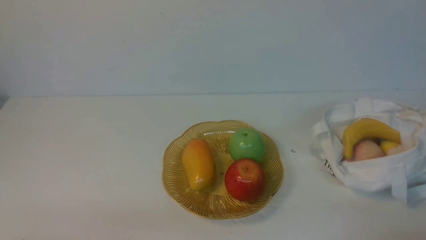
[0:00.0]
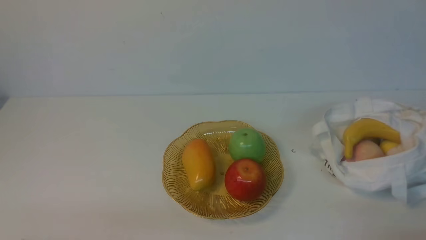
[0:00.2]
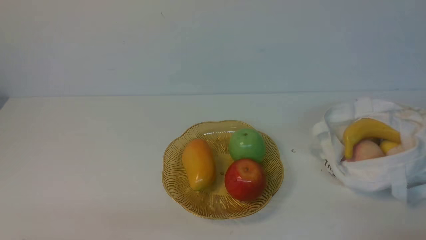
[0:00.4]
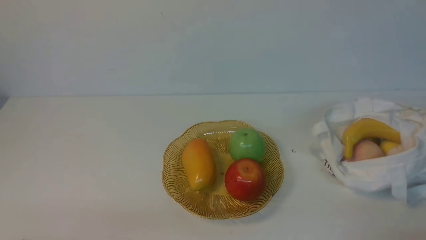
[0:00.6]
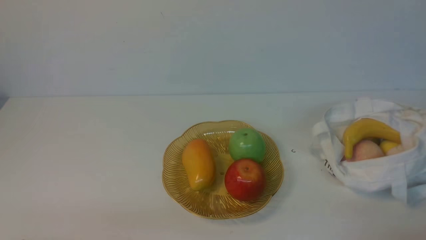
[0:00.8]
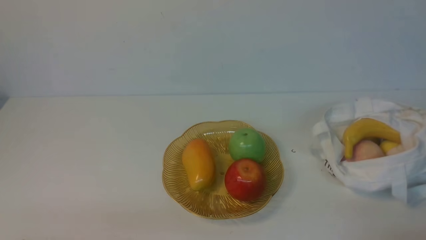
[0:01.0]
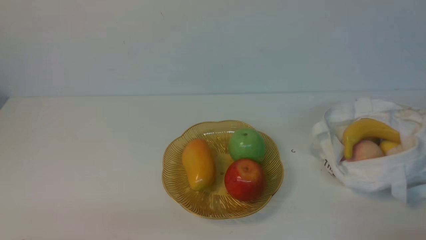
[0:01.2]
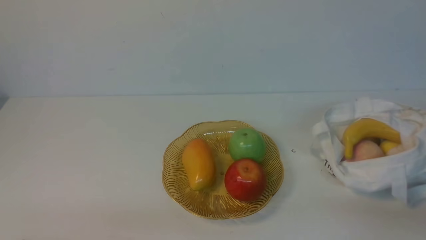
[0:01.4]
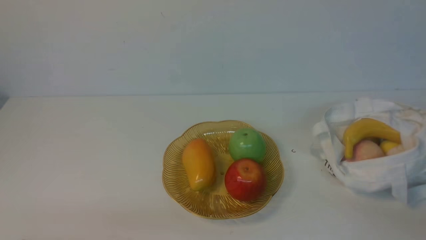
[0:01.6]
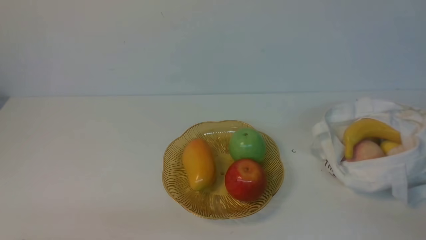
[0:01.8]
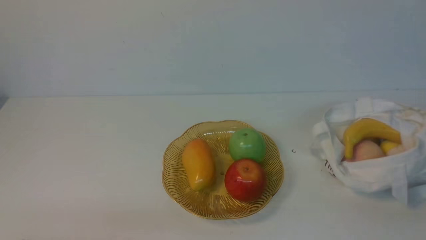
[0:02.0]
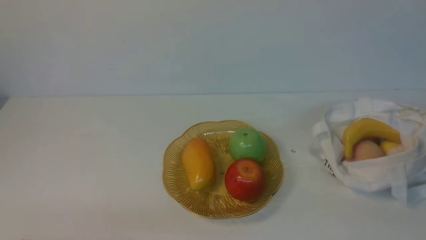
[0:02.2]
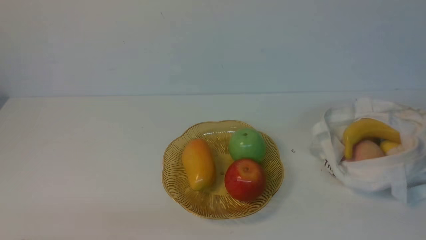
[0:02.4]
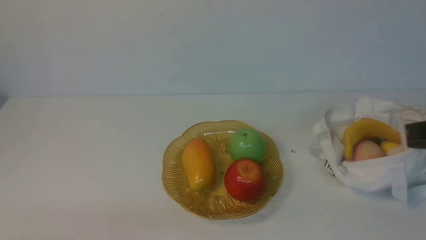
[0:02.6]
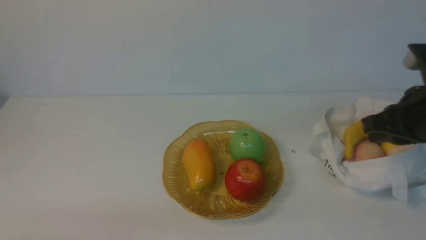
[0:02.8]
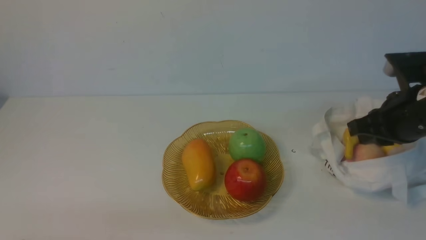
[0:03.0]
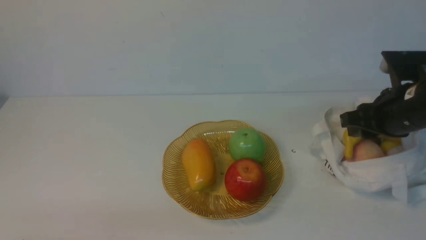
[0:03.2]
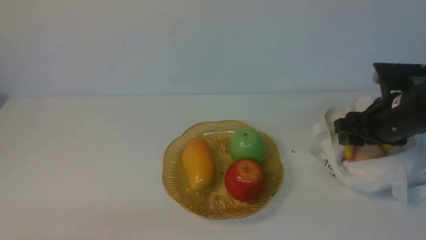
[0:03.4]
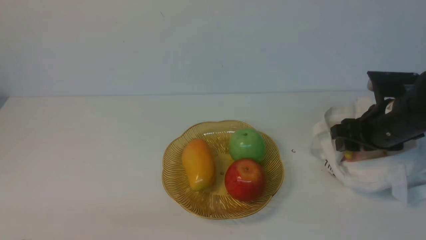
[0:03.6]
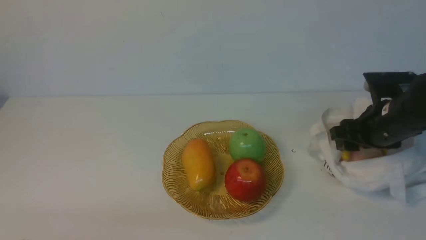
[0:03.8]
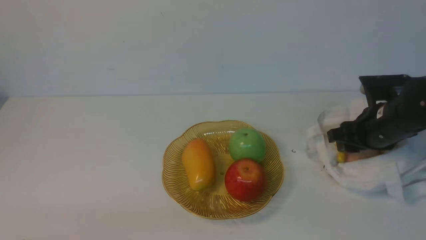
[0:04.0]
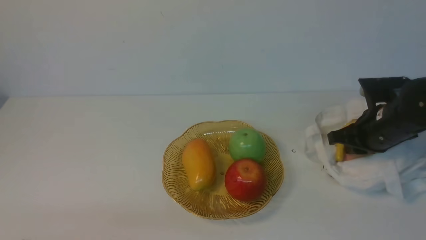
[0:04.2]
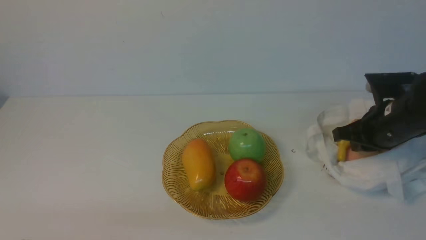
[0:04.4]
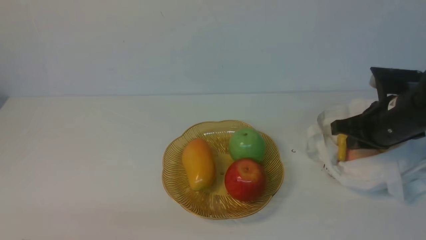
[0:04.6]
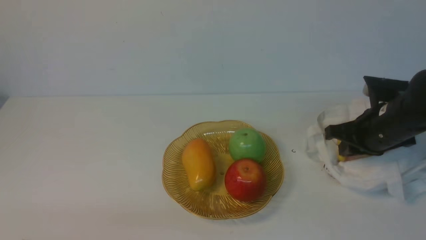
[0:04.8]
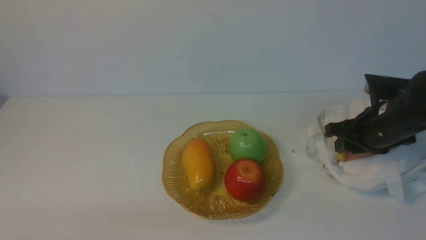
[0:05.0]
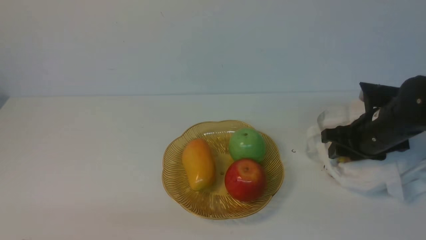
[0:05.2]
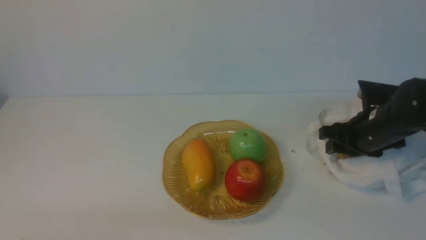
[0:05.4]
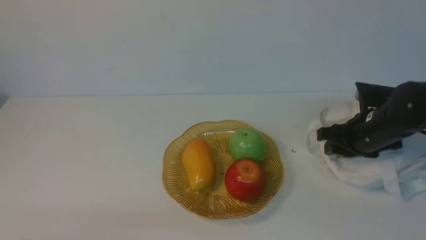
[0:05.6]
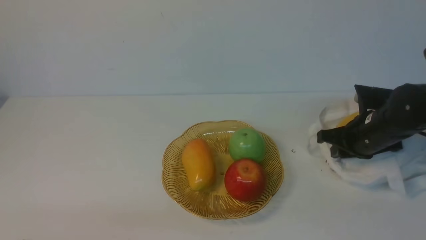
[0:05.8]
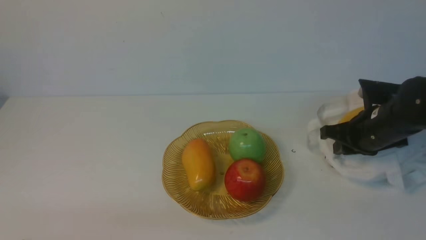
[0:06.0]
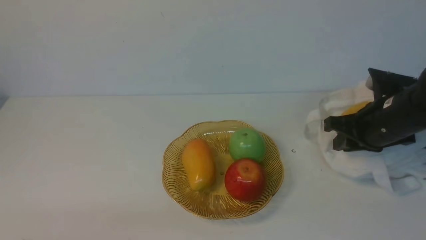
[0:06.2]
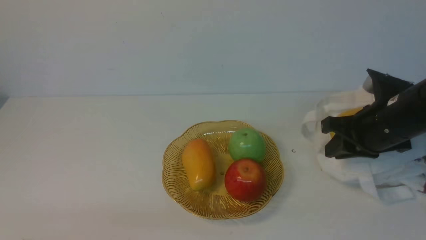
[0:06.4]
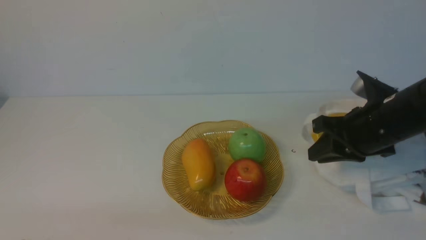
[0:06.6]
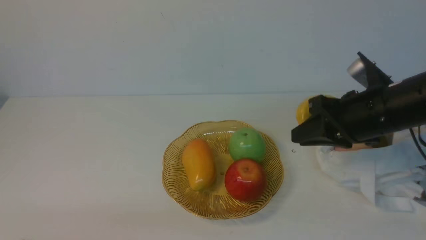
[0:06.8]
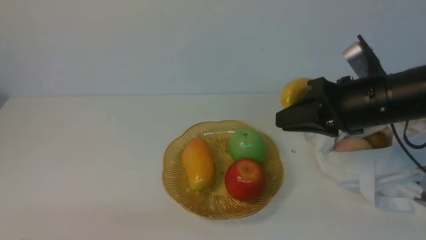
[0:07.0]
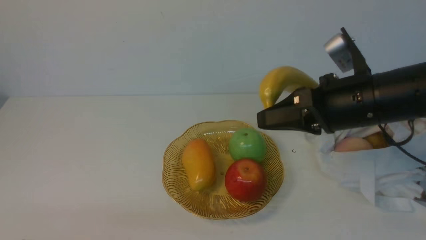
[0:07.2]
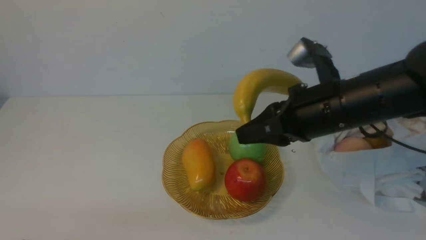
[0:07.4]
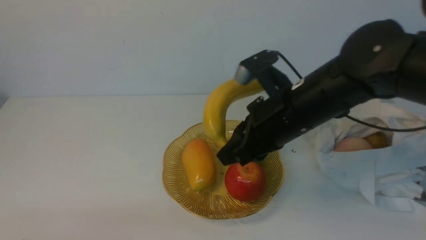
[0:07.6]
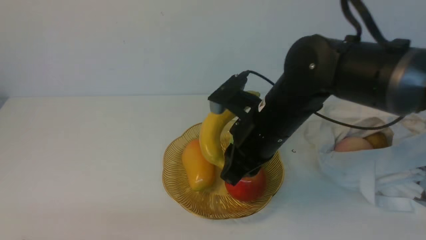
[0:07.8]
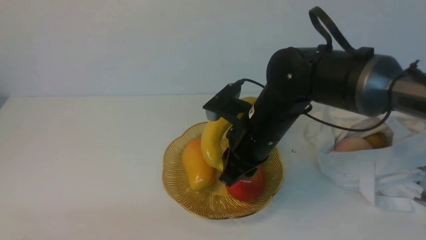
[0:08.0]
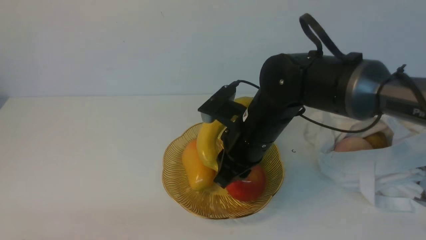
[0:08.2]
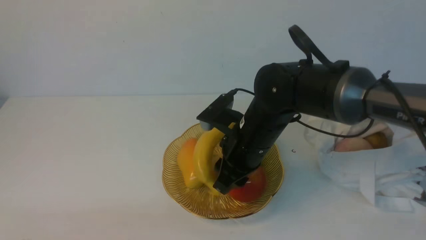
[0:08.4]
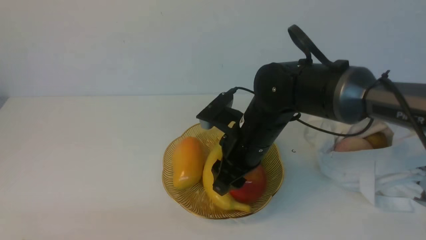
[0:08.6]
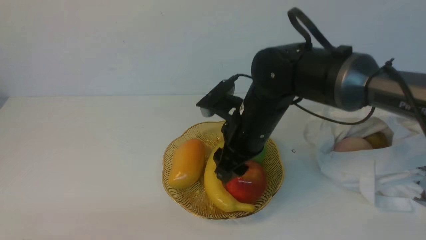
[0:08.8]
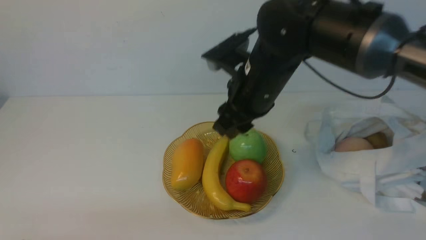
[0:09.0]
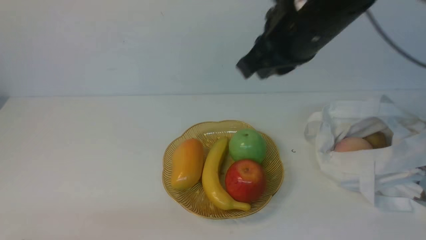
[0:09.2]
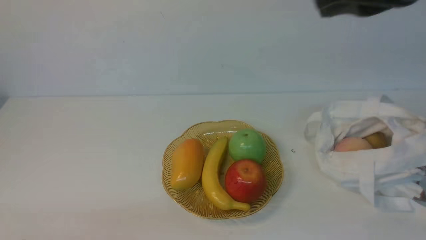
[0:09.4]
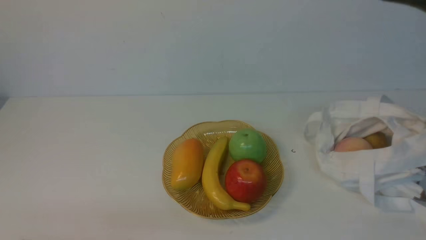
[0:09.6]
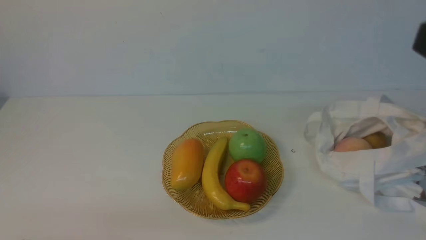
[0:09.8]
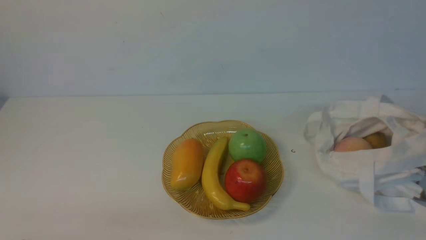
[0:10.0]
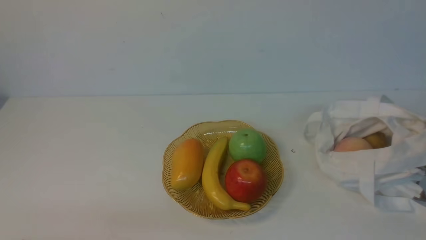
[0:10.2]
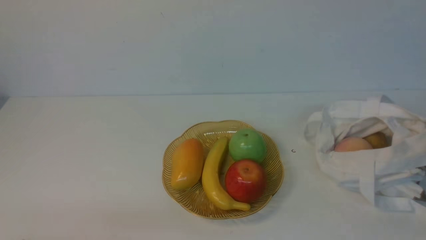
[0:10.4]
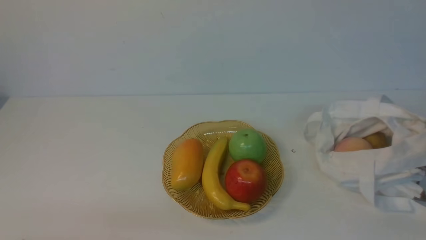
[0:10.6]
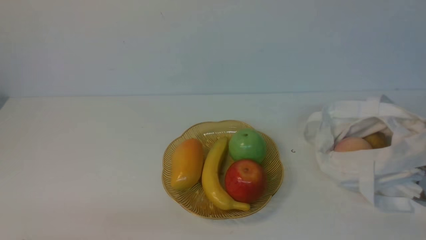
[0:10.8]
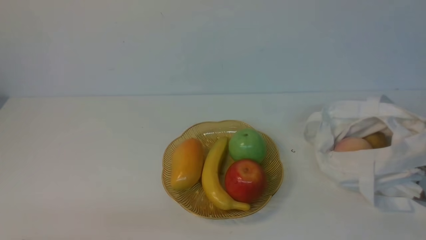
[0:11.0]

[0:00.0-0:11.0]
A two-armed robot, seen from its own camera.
Step, 0:00.0 to 0:06.2: use the right arm to grab a banana from the bag.
Step, 0:06.6 to 0:08.4: use the right arm to put the banana into the empty plate on the right.
0:01.6 to 0:03.2: The right gripper is displaced forward by approximately 25 cm, and opens.
0:03.2 to 0:04.8: The right gripper opens, then closes again.
0:04.8 to 0:06.2: The right gripper opens and closes again.
0:06.2 to 0:07.8: The right gripper travels to the left by about 15 cm.
0:07.8 to 0:09.4: The right gripper goes roughly 25 cm upward and to the right, and opens, then closes again.
0:09.4 to 0:11.0: The right gripper goes about 25 cm downward, backward and to the right.

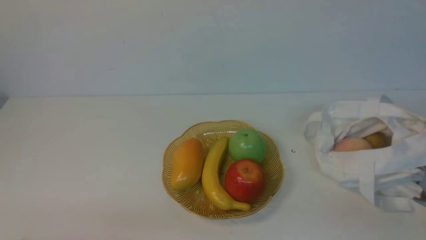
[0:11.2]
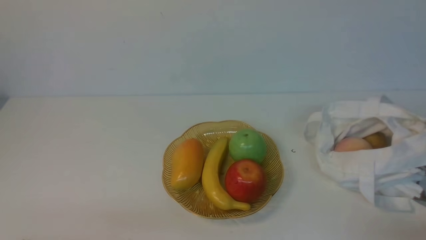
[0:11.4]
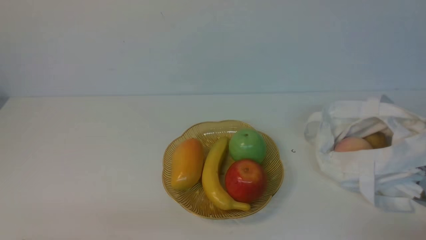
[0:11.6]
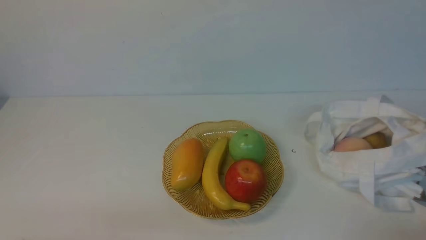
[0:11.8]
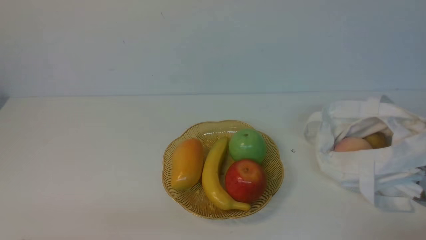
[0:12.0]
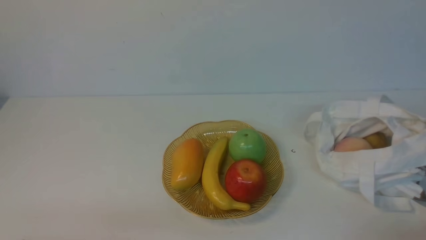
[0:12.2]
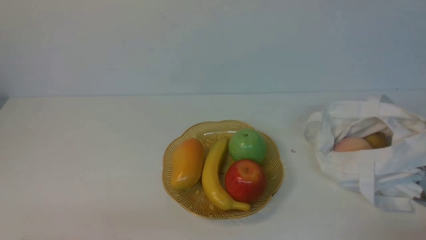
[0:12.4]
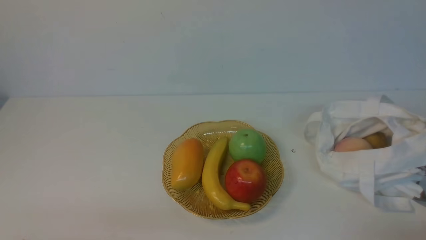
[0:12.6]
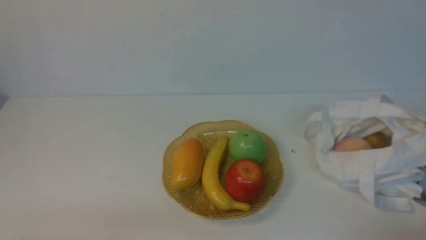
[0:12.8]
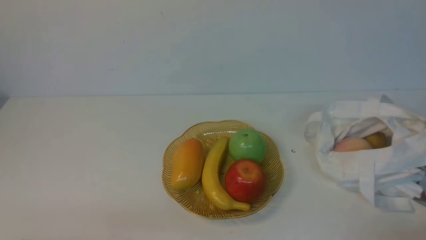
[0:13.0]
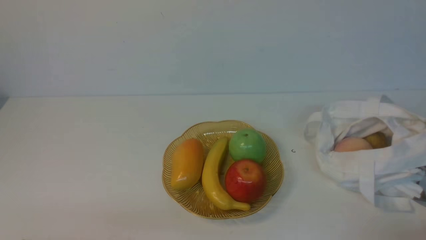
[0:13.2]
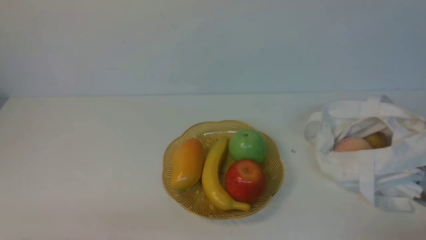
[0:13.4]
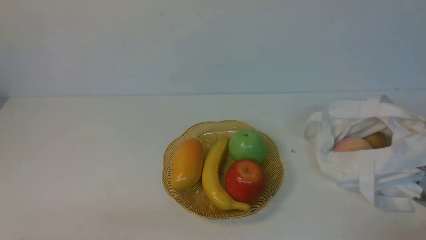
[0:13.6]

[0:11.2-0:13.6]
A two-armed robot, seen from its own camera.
0:12.4 to 0:13.6: The two grippers keep their place.

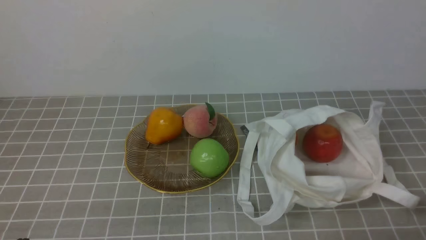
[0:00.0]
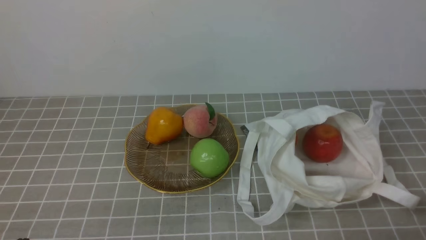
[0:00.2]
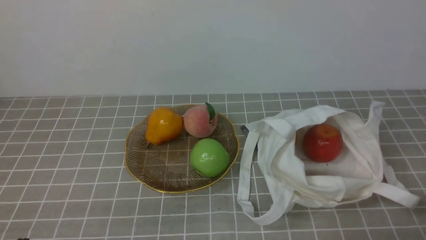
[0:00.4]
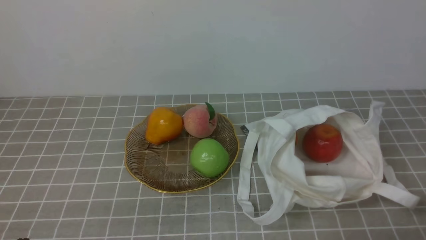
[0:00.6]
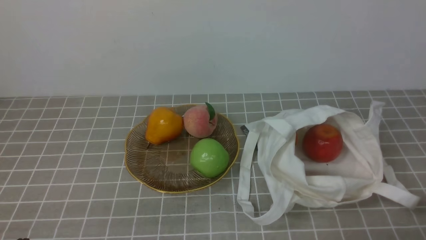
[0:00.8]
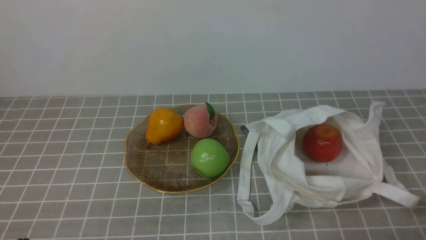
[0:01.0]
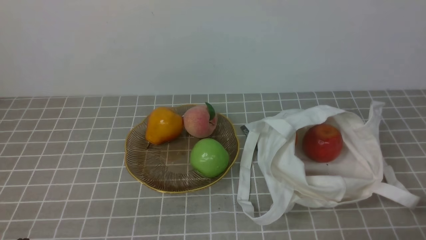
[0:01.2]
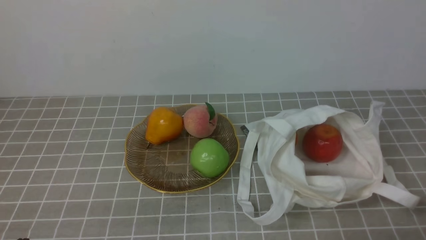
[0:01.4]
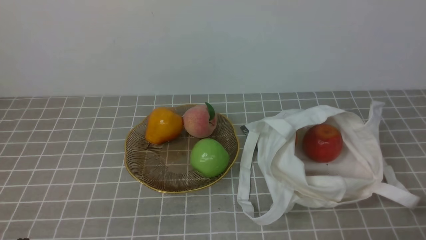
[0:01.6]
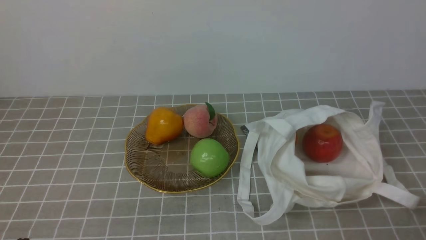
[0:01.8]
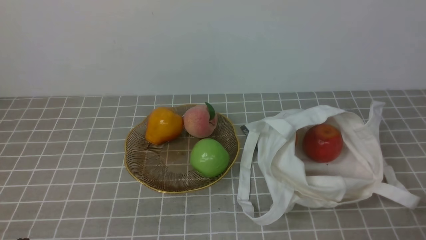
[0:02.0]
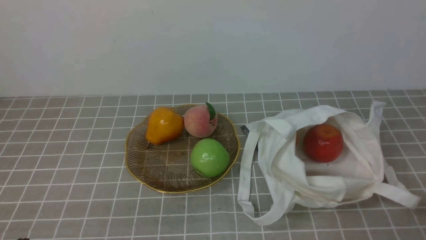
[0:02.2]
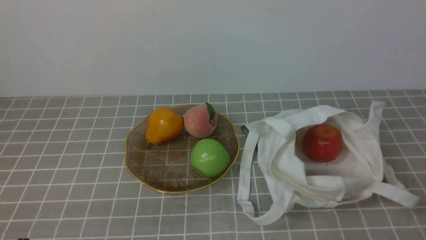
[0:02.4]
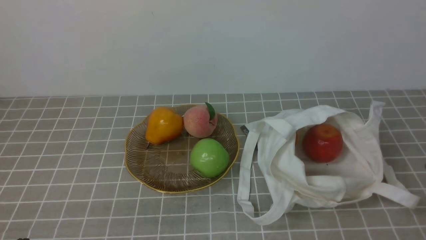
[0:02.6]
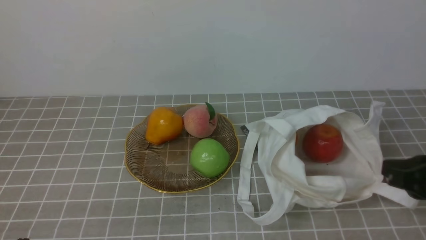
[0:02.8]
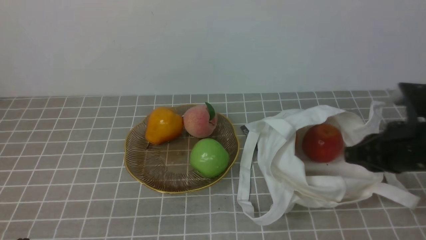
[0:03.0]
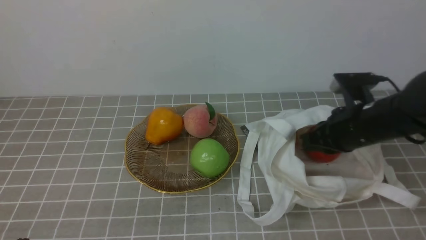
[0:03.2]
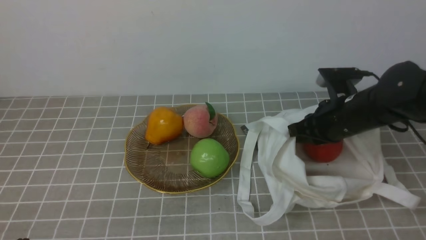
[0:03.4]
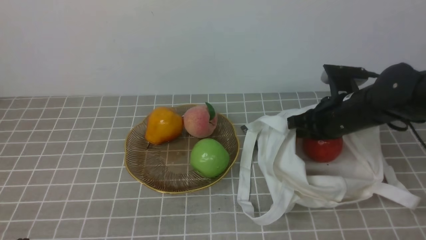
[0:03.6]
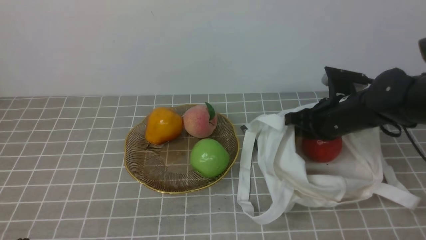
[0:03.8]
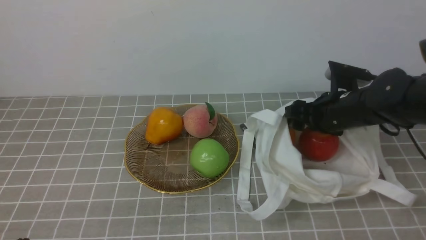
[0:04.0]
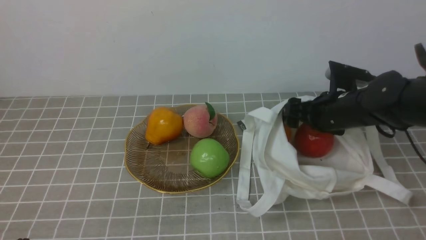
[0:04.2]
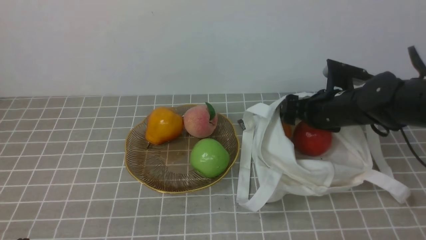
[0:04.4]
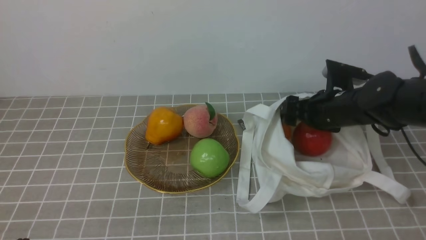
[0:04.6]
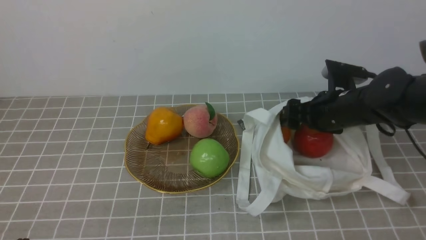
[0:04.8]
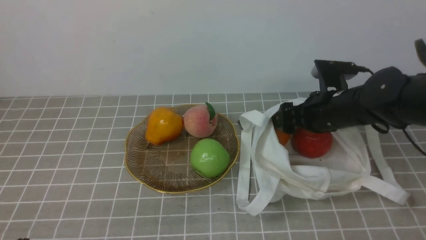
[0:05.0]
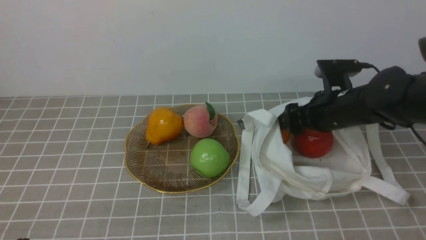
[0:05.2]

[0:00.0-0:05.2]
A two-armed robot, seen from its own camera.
0:01.8 to 0:03.4: The right gripper goes some 30 cm forward.
0:03.4 to 0:05.2: The right gripper opens.
